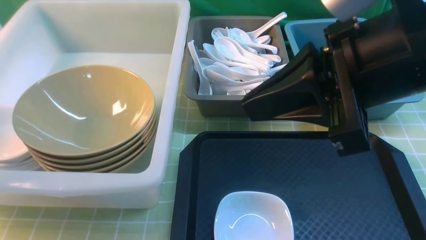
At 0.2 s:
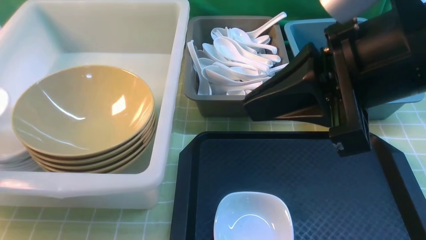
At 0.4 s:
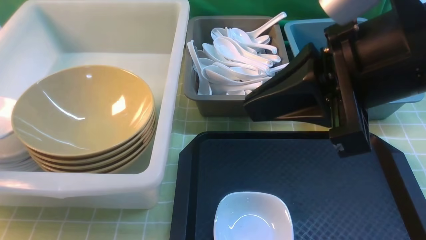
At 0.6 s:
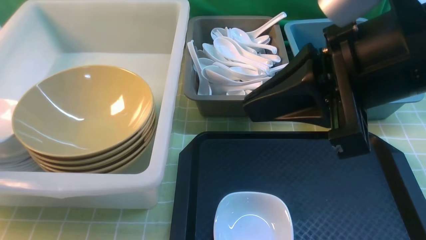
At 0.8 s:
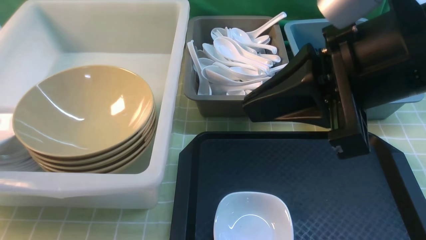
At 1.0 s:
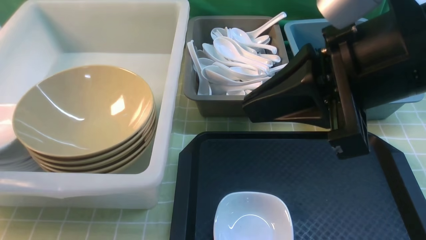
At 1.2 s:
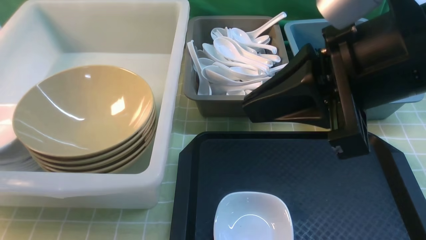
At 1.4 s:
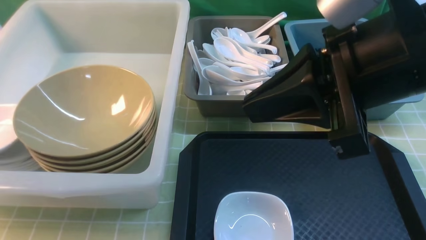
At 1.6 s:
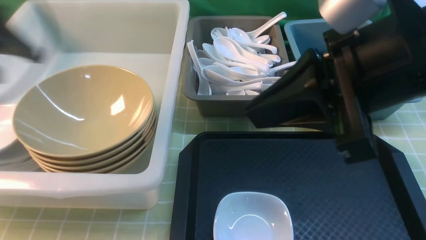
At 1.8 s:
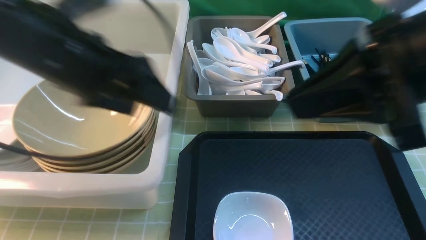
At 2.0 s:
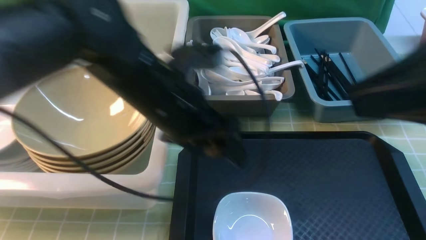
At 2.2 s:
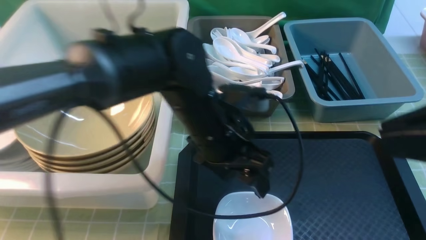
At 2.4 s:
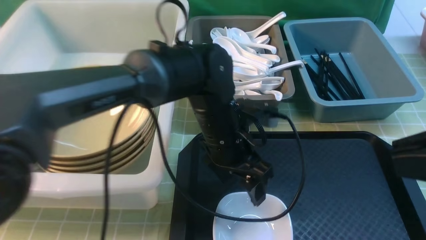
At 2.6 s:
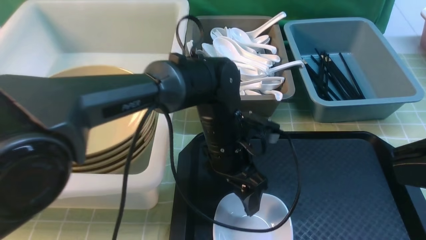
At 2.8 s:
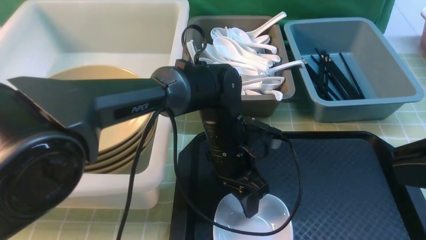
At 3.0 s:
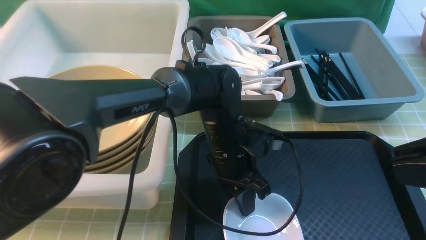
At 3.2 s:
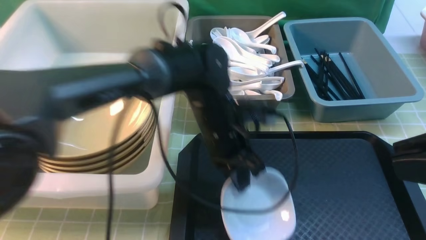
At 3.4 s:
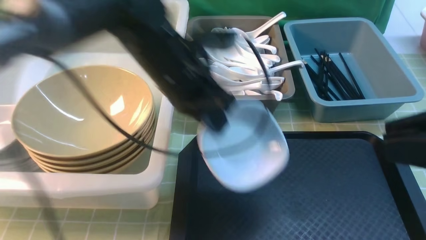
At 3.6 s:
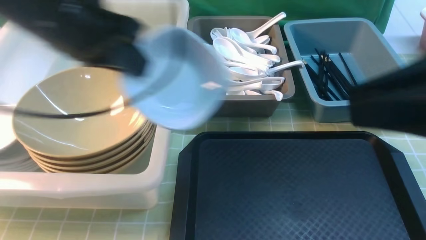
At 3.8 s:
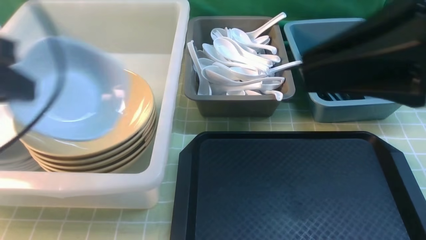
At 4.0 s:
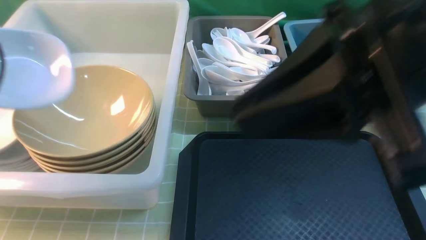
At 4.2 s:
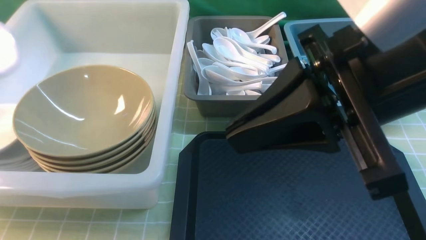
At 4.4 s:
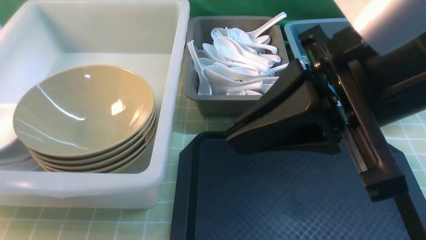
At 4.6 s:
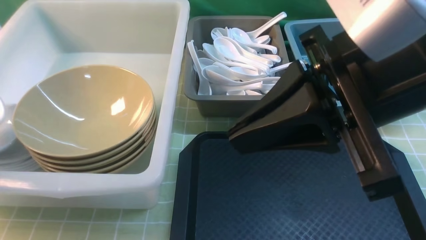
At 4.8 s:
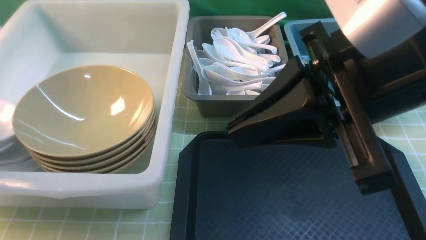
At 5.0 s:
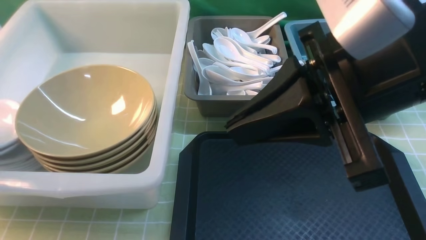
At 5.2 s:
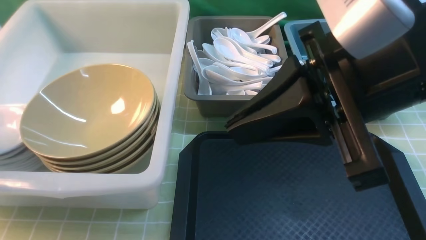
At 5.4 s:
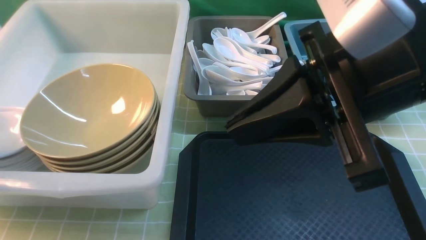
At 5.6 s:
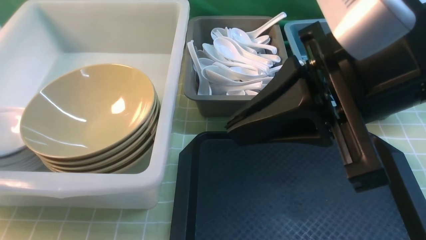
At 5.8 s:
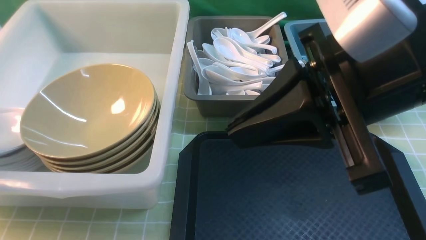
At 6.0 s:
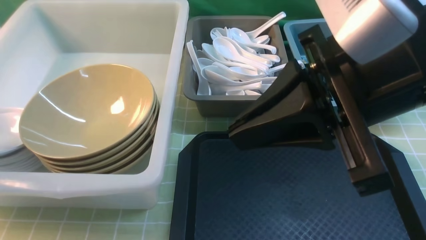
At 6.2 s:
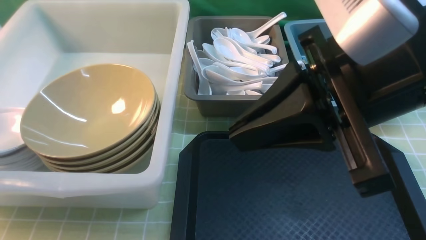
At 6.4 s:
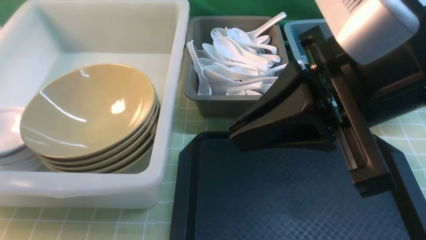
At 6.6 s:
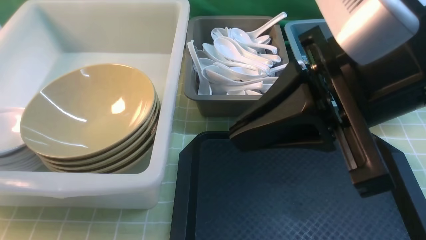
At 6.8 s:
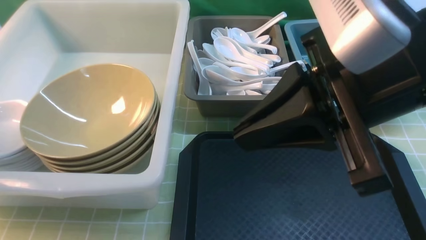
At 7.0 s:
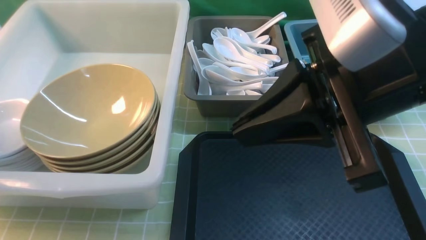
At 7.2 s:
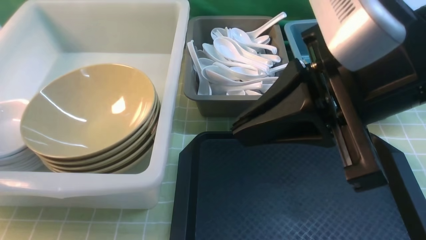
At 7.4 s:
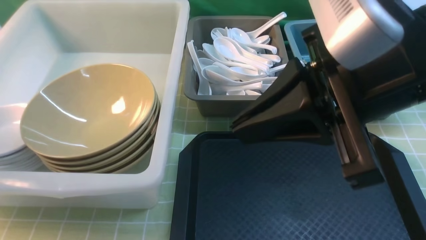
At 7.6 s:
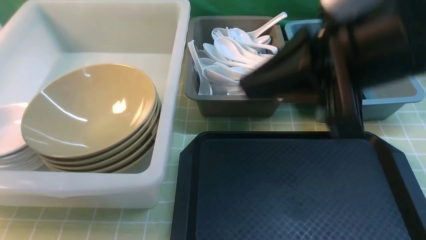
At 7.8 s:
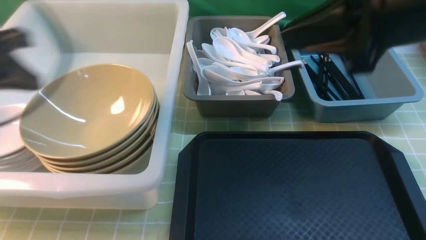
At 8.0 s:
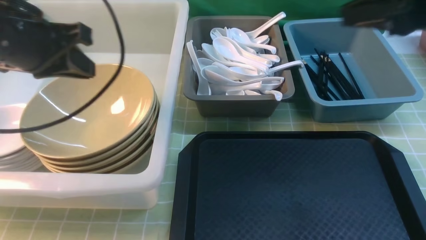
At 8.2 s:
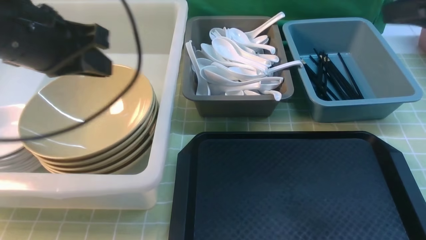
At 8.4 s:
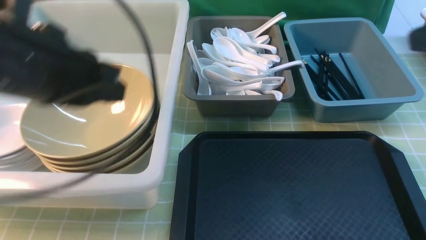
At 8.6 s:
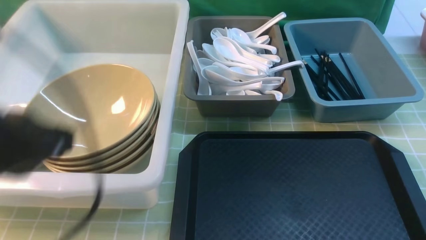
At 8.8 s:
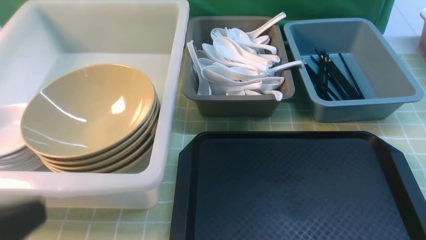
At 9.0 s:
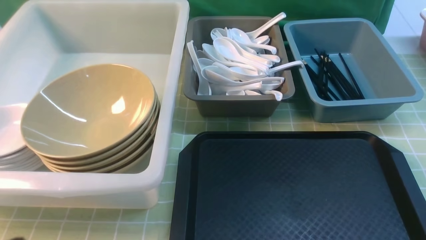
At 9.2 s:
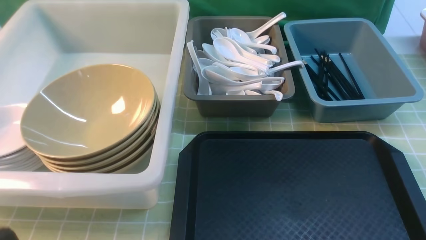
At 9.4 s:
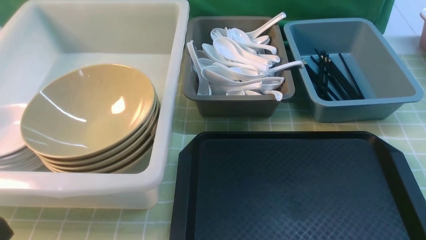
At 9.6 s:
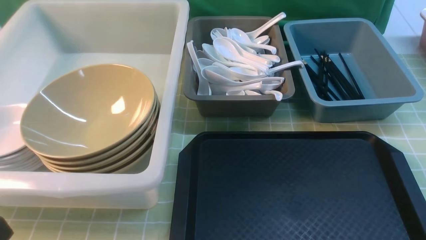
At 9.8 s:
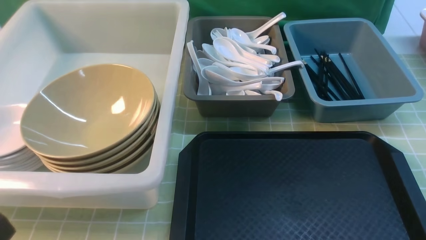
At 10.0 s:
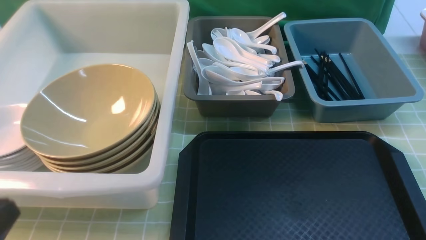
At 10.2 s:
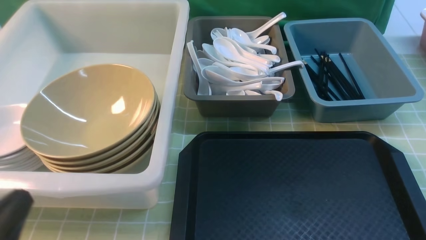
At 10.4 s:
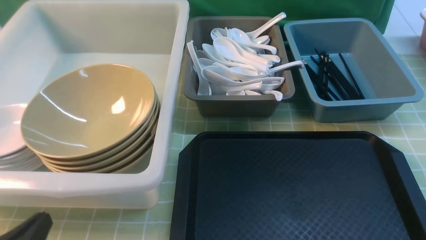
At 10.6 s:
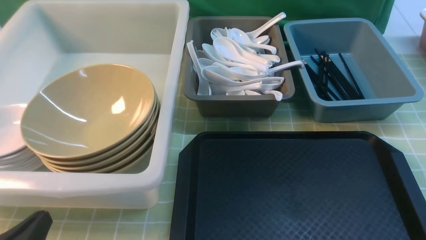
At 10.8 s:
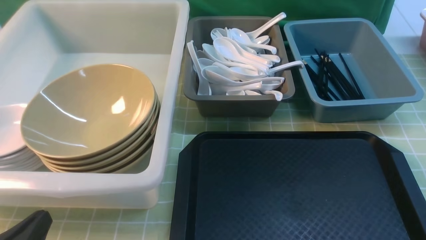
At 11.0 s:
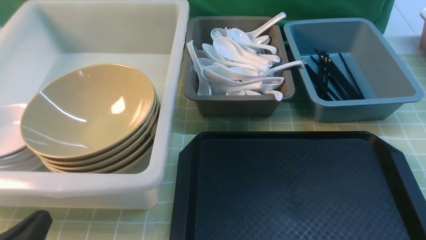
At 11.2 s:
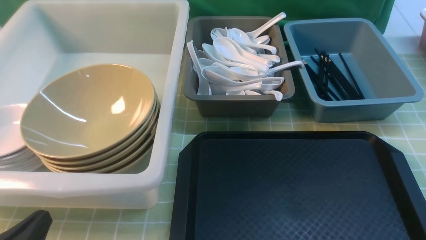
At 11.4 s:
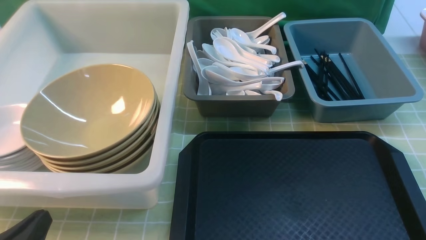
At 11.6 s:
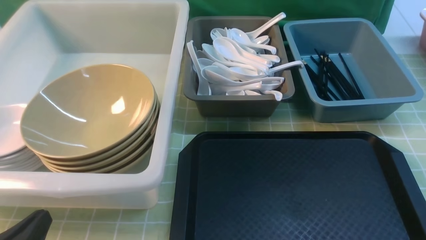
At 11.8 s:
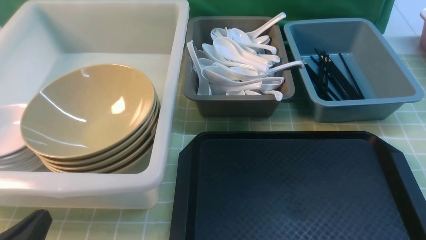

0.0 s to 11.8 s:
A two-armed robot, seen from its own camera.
Task of the whole recording: on green table put chopsticks spoon bowls plates into blue grey white boxes.
Step, 0.0 to 1.4 s: use the left arm to put the plate into the large storage box on the left.
Step, 1.6 to 3.2 s: use the left arm to grab the plate.
Step, 3.4 to 7.8 s: use the left arm to put the plate into the large storage box on the left.
0.0 to 1.4 s: The left gripper moves to the right, some 5 cm, reaches some 5 cm downward, then returns, and opens.
1.4 to 3.0 s: The right gripper shifts approximately 15 cm backward and to the right; the left gripper travels to the right and downward by roughly 40 cm, and closes up.
3.0 to 4.4 s: The left gripper shifts approximately 40 cm to the left. The right gripper moves to the left and forward, approximately 15 cm.
4.4 to 6.0 s: The left gripper goes some 5 cm downward, and opens up.
6.0 to 7.4 s: The left gripper closes up.
7.4 to 8.8 s: The right gripper moves to the right, backward and downward, some 20 cm, while the left gripper heads backward and to the right, covering roughly 30 cm.
8.8 to 10.4 s: The left gripper heads downward, covering some 15 cm.

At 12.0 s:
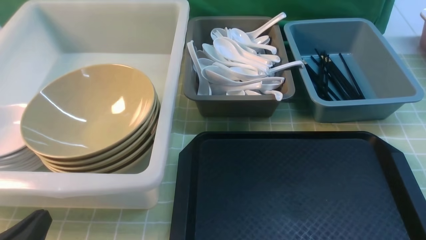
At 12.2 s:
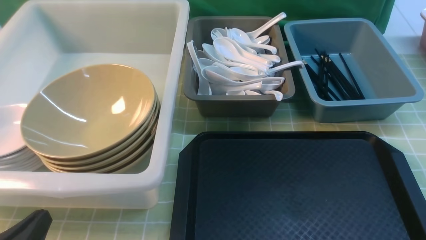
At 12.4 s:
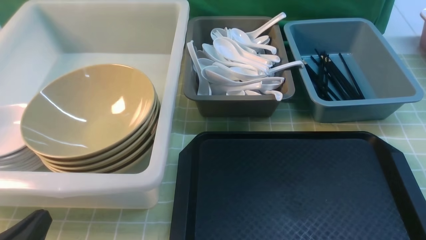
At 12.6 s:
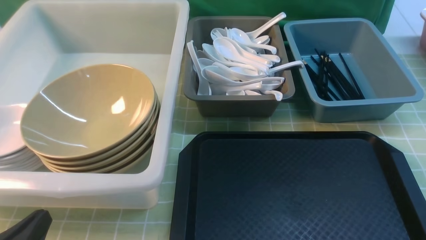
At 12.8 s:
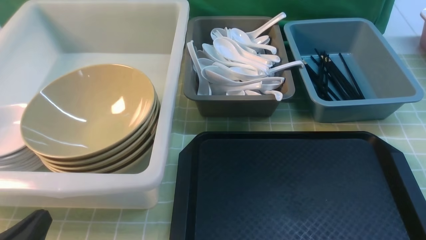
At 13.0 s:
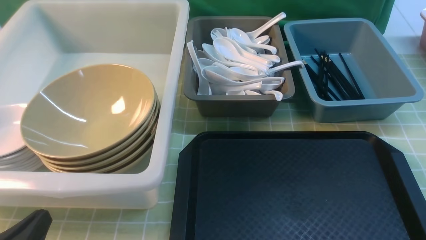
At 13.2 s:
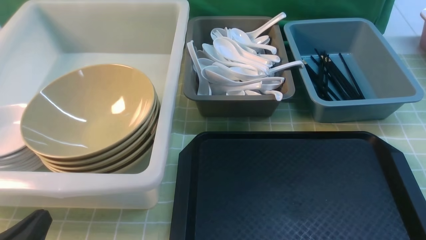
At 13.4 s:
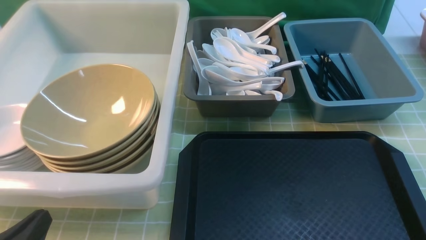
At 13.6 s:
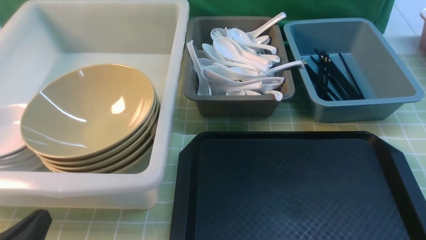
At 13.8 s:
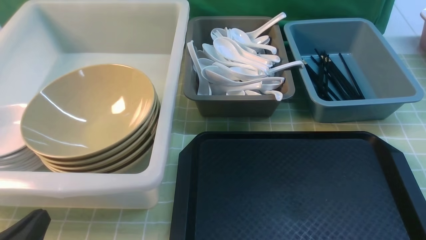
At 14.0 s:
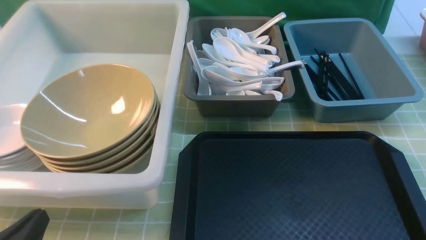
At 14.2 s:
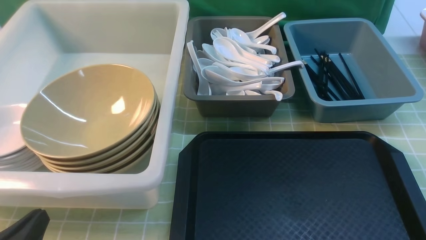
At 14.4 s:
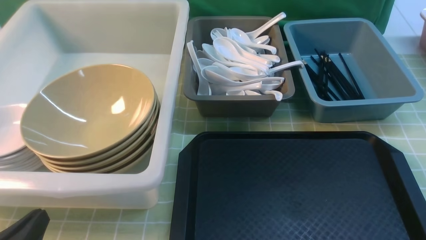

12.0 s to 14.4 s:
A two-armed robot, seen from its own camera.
Task of the whole recording: on green table put chopsticks spoon bowls plates into blue grey white boxes.
13.2 to 14.4 s: Both grippers stay put.
